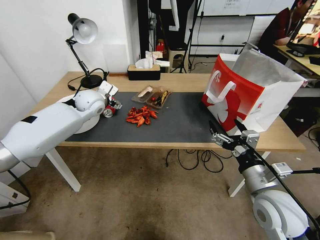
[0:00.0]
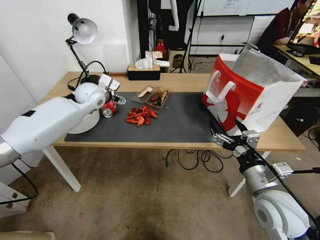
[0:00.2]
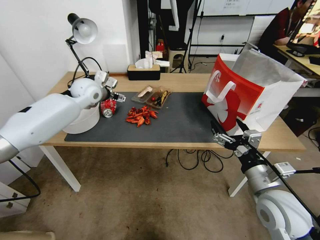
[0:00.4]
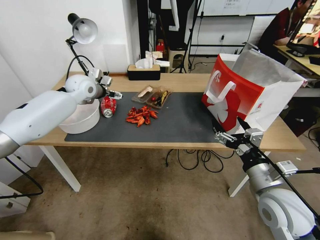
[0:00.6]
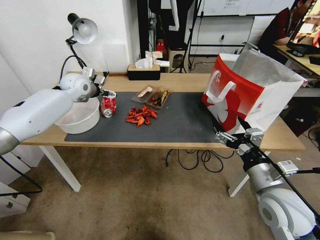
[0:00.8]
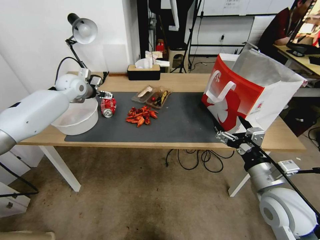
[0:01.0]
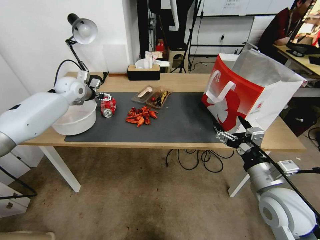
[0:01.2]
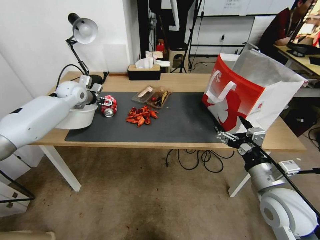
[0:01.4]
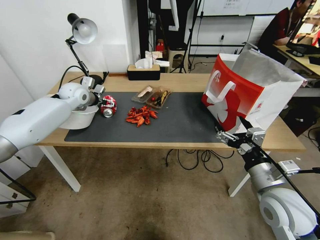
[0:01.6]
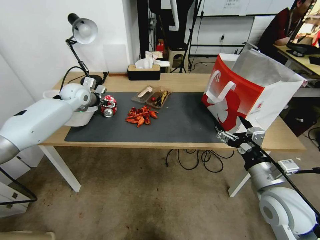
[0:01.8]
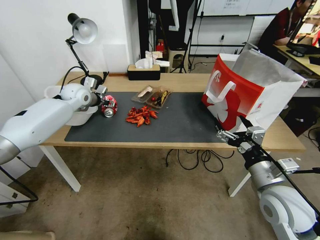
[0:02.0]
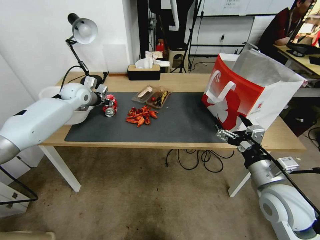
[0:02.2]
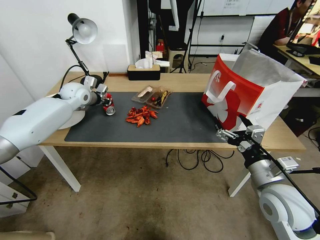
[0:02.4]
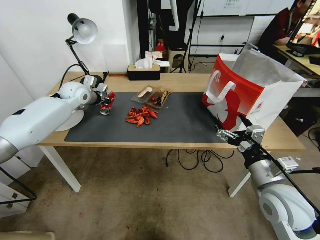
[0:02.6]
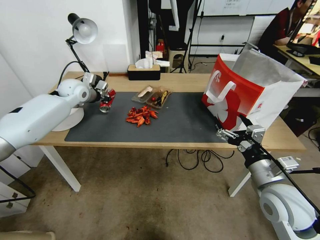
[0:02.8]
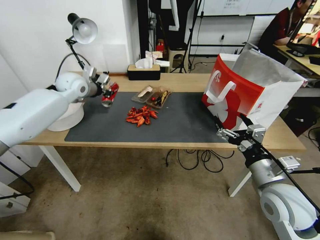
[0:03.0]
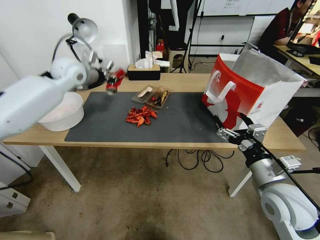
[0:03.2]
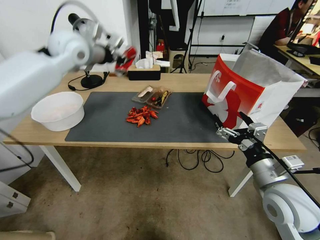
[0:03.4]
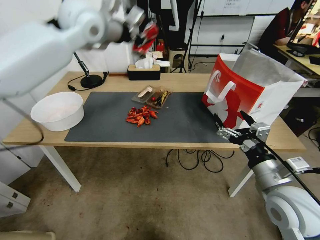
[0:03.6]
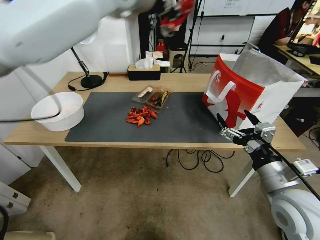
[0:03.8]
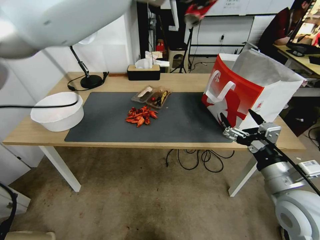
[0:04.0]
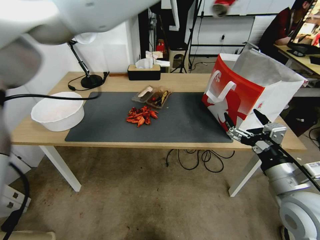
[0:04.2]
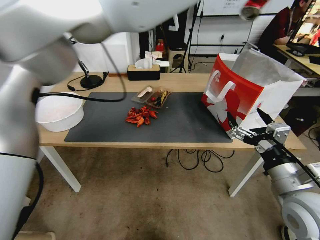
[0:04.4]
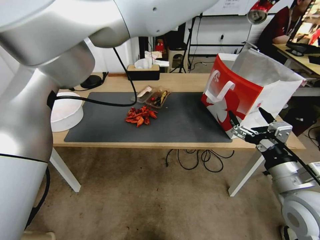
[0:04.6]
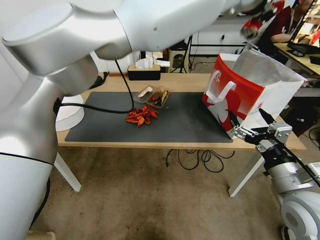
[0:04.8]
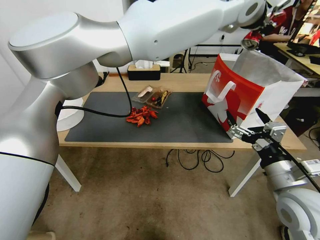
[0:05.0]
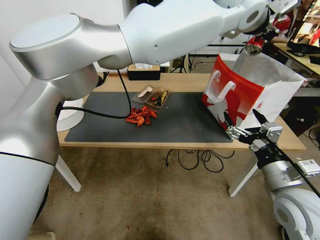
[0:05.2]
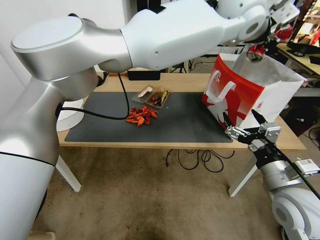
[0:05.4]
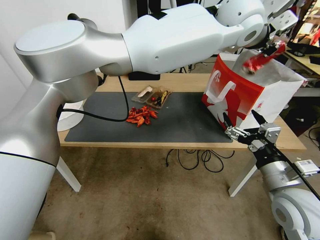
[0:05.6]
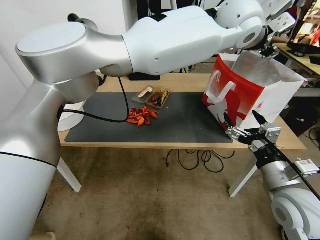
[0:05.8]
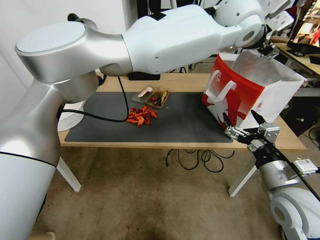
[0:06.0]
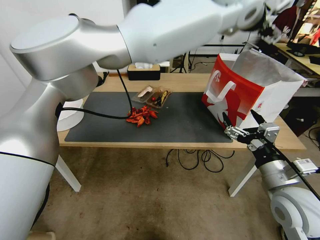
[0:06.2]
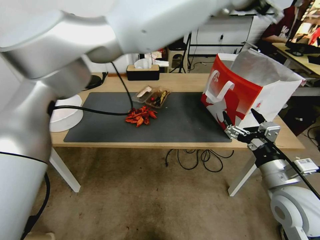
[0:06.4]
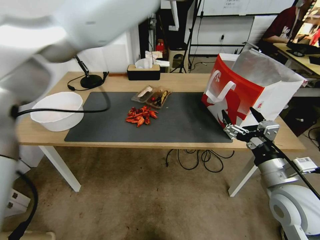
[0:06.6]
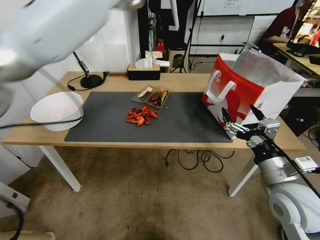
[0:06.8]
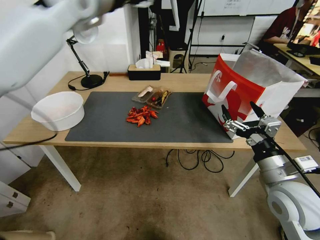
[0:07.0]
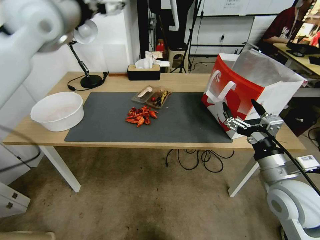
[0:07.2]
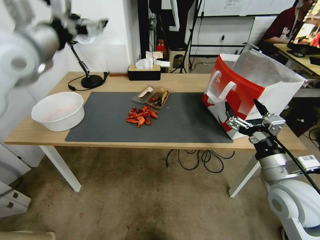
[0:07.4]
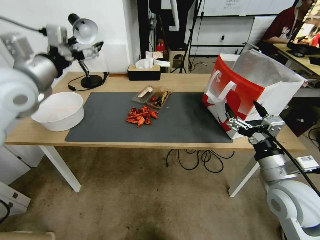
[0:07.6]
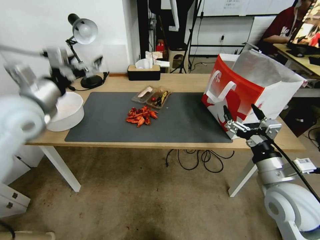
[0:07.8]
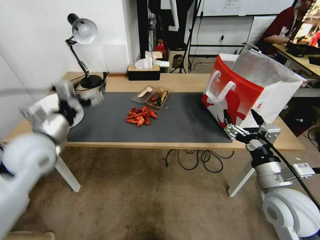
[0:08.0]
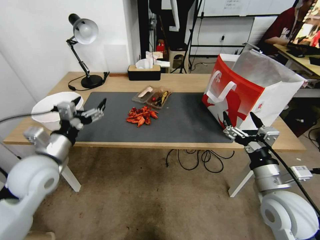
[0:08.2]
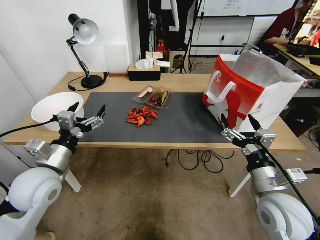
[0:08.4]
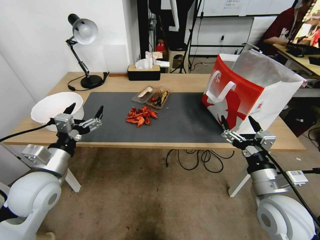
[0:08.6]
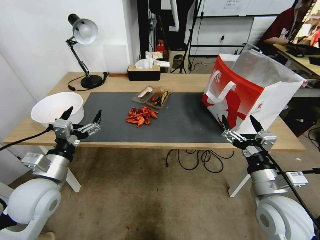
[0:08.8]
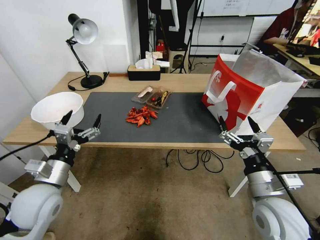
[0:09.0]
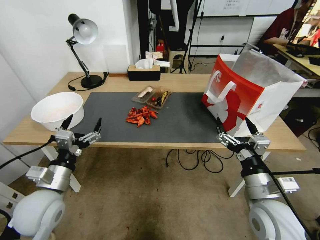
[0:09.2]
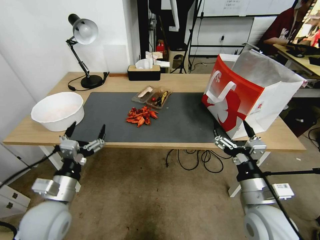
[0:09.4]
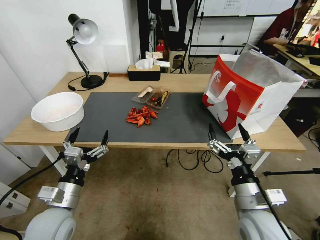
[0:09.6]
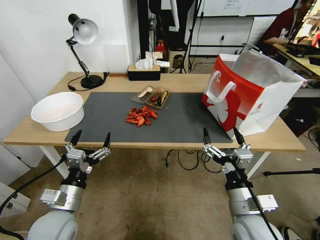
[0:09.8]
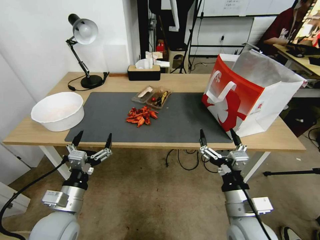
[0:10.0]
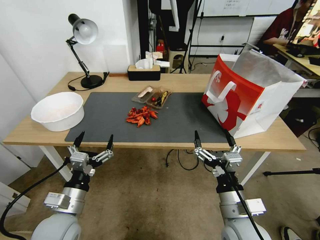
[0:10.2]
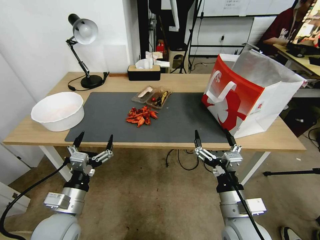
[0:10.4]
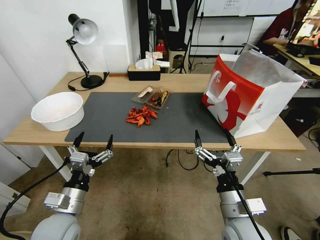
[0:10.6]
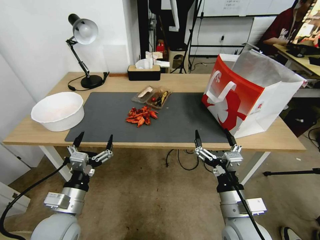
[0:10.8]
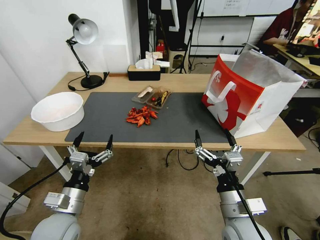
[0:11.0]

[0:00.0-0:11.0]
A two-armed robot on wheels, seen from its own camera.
0:00.0 to 0:01.6: The left gripper travels to the left by about 10 cm.
0:01.6 to 0:03.2: The left gripper shifts some 10 cm upward, and closes its fingers.
0:03.2 to 0:04.8: The left gripper is displaced to the right and upward by approximately 50 cm.
0:04.8 to 0:06.2: The left gripper opens its fingers.
0:06.2 to 0:07.8: The left gripper heads to the left and downward, covering approximately 50 cm.
0:07.8 to 0:09.4: The right gripper travels to the left by roughly 5 cm, while the left gripper moves downward and backward, some 25 cm.
0:09.4 to 0:11.0: The right gripper shifts about 5 cm to the left.

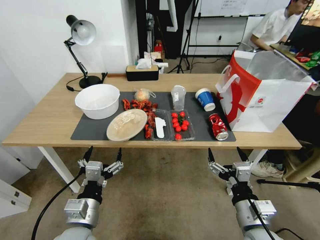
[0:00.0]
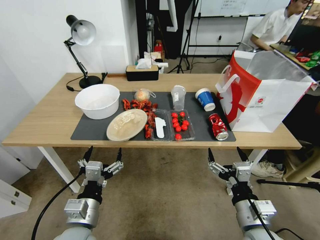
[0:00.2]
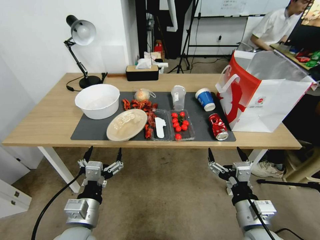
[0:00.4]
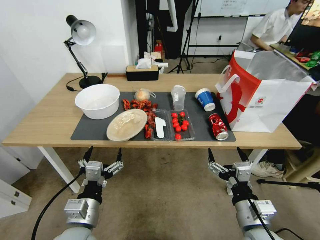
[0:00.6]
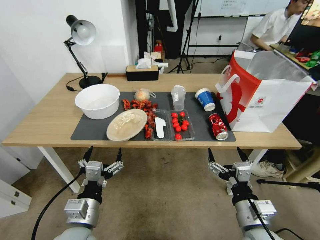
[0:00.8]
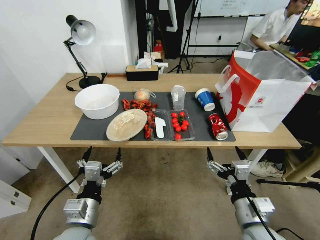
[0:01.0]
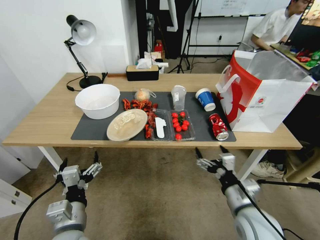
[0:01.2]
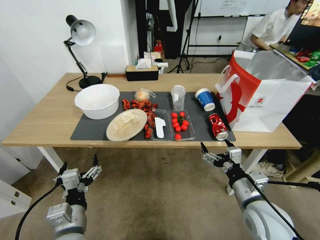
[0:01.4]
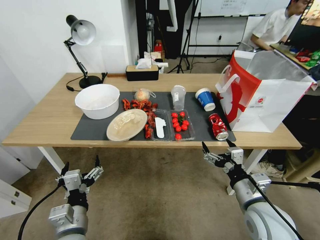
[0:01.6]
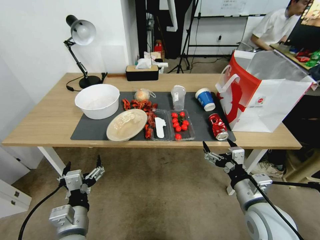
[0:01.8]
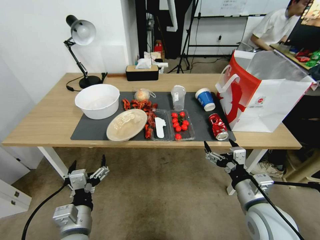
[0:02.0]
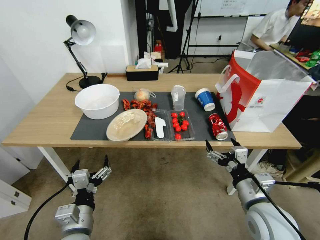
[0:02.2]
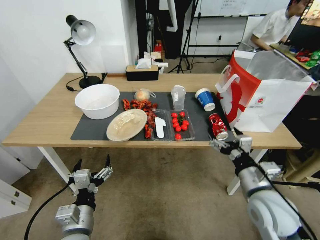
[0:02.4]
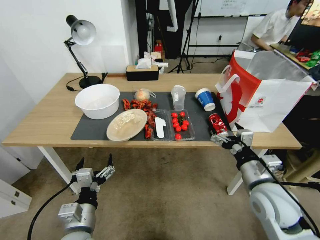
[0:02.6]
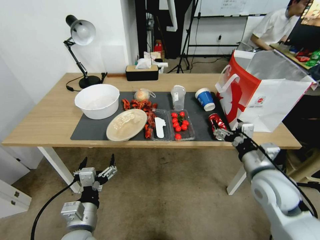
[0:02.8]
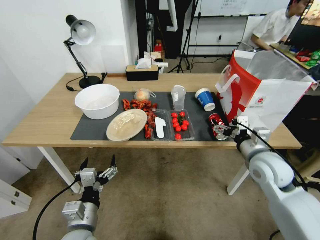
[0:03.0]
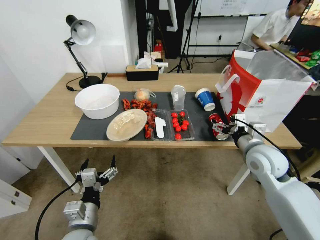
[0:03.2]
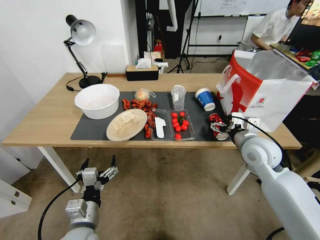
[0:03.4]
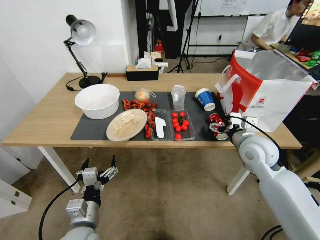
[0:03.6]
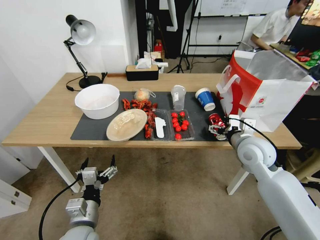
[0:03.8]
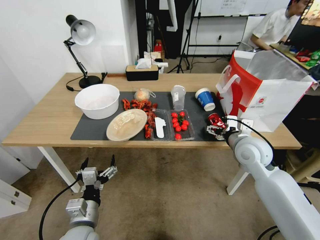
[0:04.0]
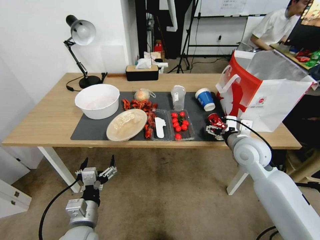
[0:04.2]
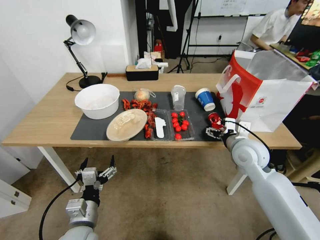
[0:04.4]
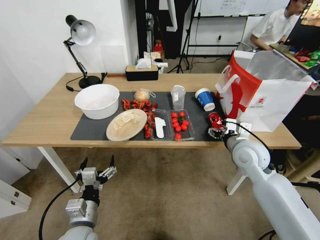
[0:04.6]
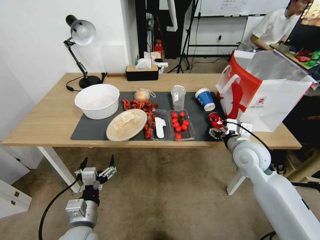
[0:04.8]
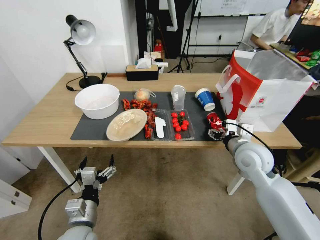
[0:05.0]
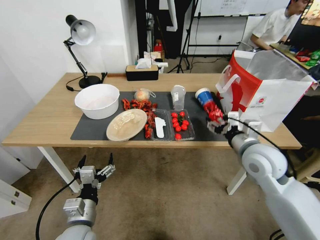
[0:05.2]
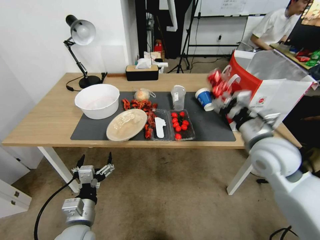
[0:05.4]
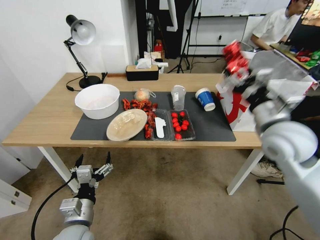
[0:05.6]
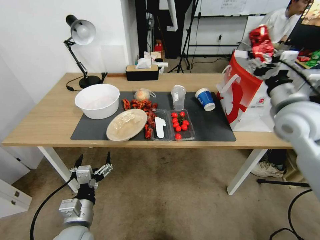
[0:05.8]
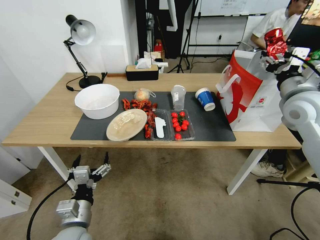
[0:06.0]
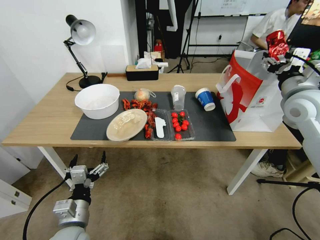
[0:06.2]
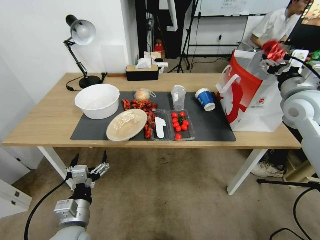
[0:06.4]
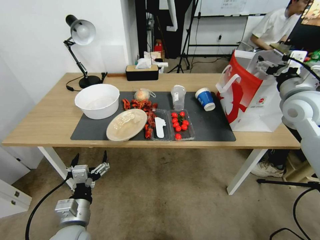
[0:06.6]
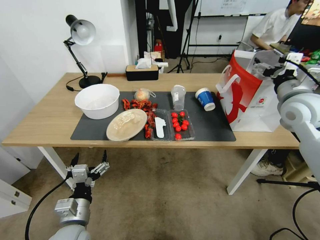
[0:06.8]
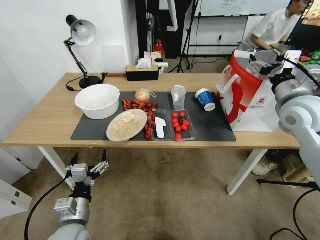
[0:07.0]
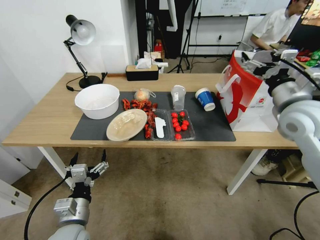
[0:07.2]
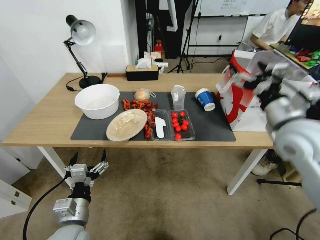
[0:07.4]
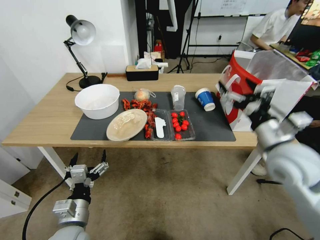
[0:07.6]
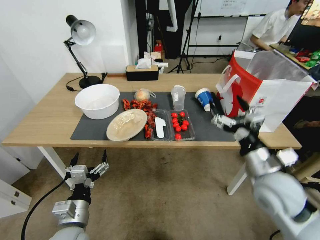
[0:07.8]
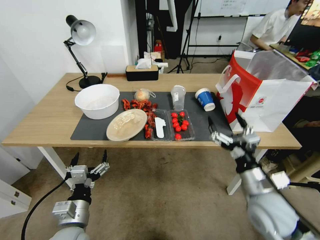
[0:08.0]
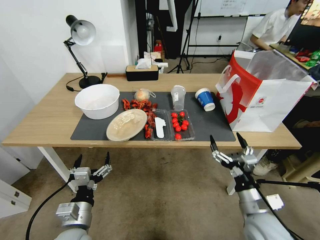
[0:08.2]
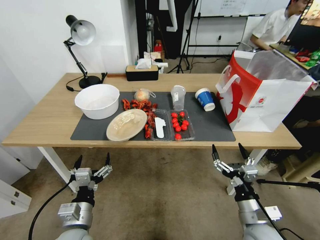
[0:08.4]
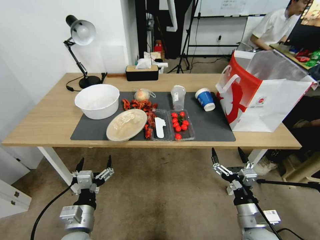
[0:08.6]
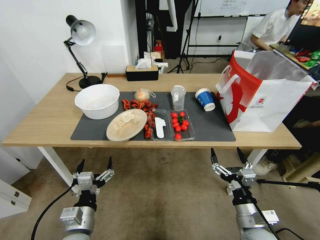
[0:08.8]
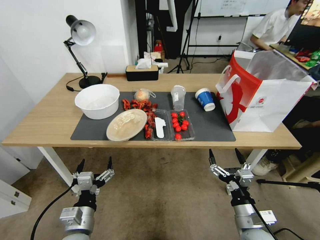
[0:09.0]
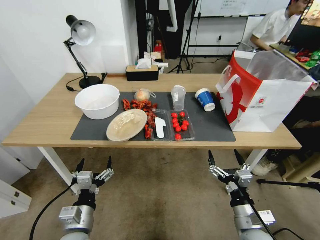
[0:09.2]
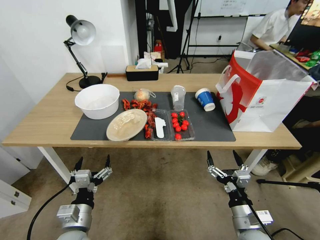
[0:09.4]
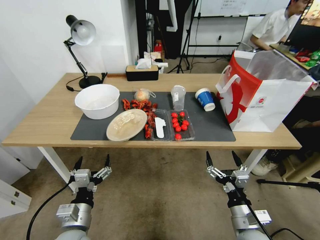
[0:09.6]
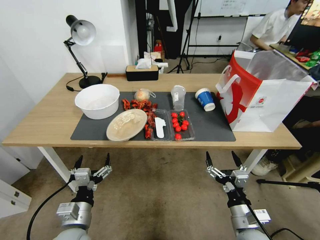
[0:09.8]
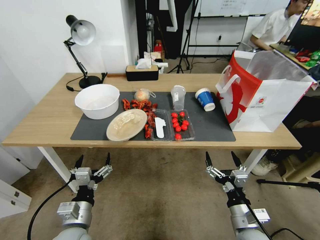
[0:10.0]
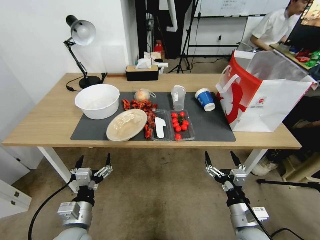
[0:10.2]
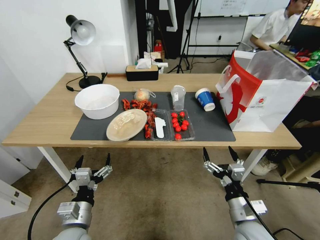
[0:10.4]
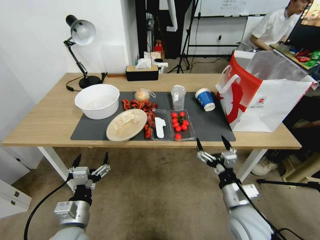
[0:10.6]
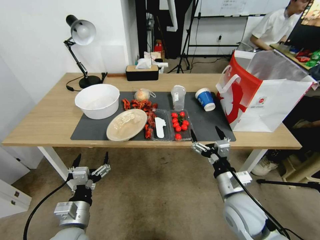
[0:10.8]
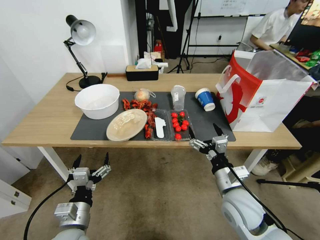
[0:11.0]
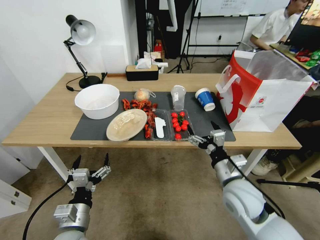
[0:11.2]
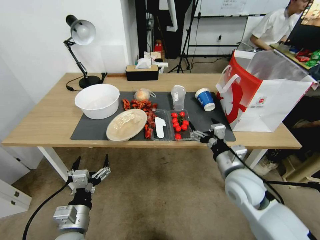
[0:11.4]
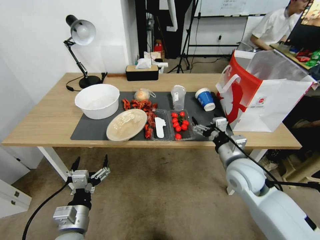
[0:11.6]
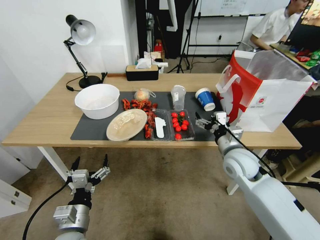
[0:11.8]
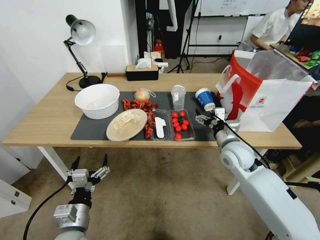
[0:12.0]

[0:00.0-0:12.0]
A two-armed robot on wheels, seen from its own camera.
0:01.6 to 0:03.0: The right gripper heads forward and upward, covering roughly 10 cm.
0:03.0 to 0:04.4: The right gripper heads forward, covering approximately 5 cm.
0:04.4 to 0:06.0: The right gripper travels upward and to the right by approximately 20 cm.
0:06.0 to 0:07.6: The right gripper goes approximately 15 cm backward, downward and to the left, and opens up.
0:07.6 to 0:09.0: The right gripper heads downward and backward, covering approximately 25 cm.
0:09.0 to 0:10.4: The grippers stay close to where they were, moving slightly.
0:10.4 to 0:12.0: The right gripper is displaced forward by approximately 20 cm.
